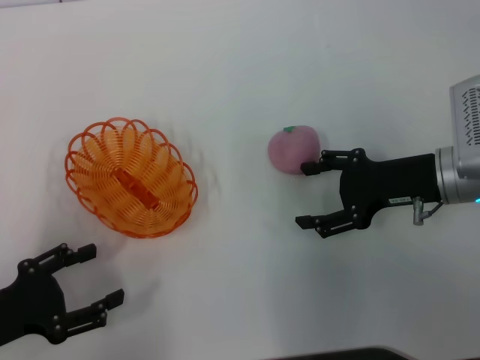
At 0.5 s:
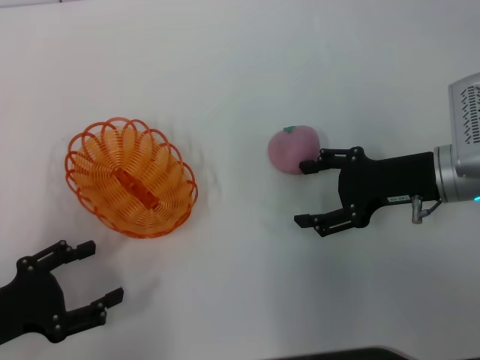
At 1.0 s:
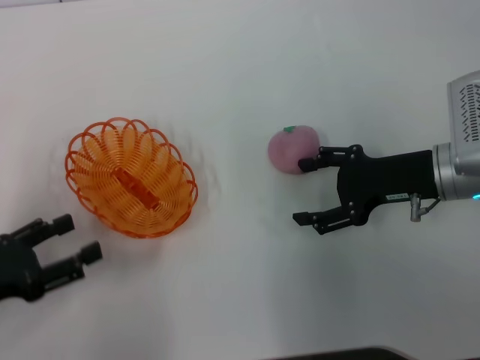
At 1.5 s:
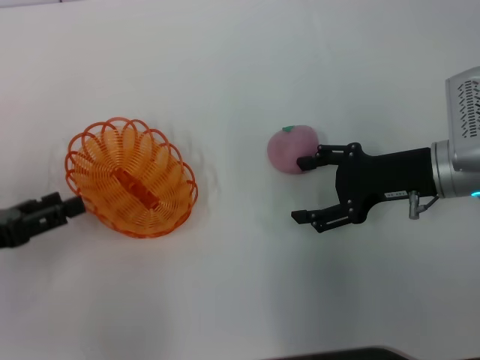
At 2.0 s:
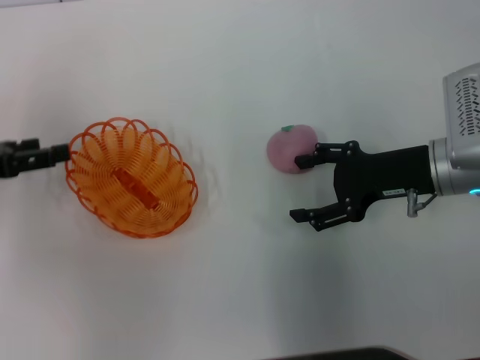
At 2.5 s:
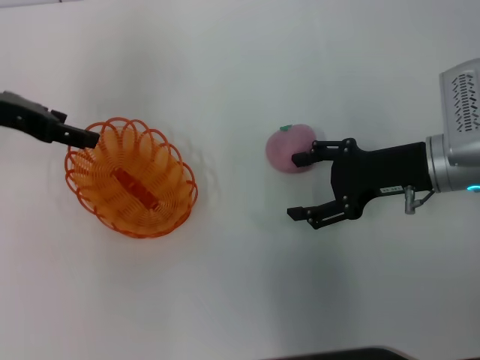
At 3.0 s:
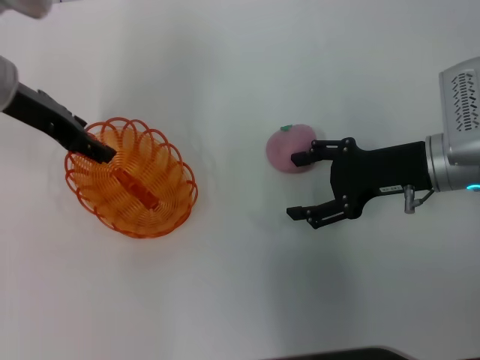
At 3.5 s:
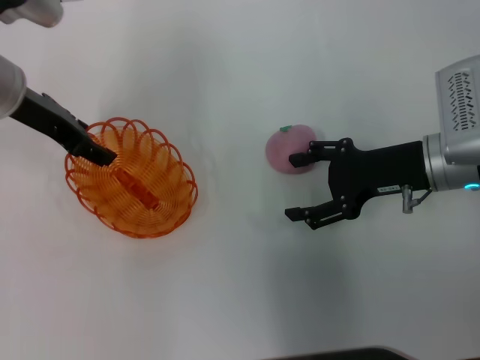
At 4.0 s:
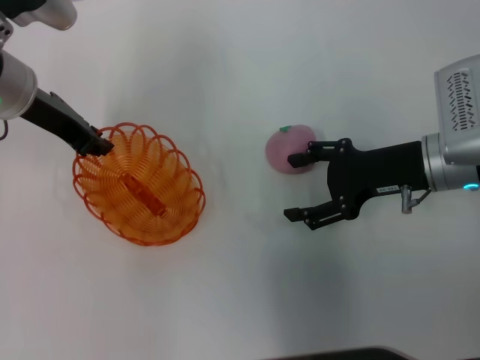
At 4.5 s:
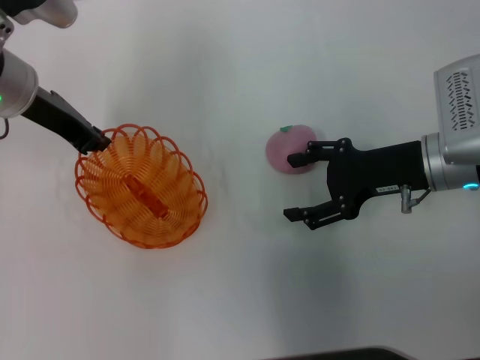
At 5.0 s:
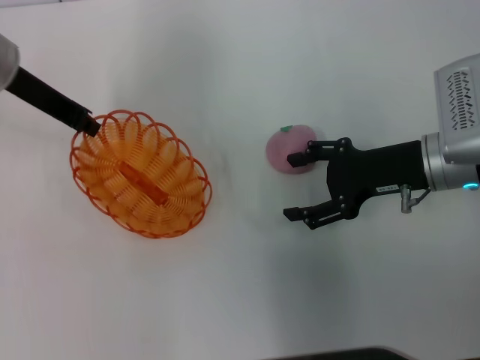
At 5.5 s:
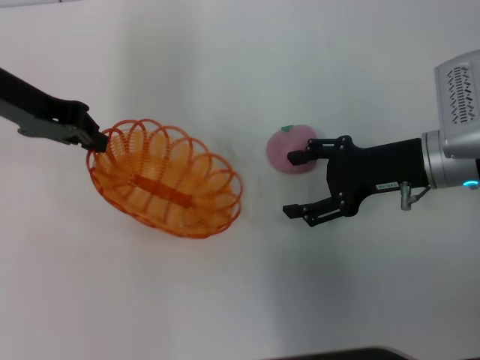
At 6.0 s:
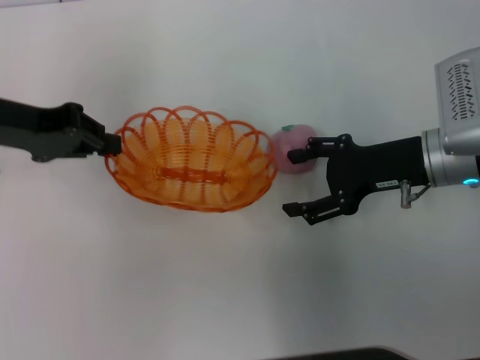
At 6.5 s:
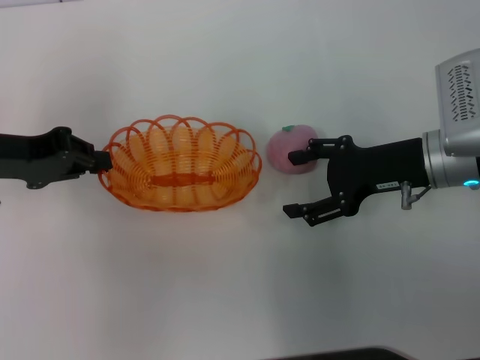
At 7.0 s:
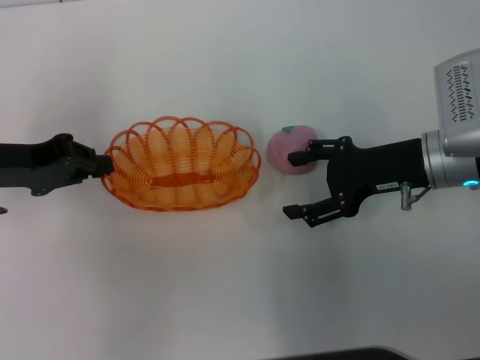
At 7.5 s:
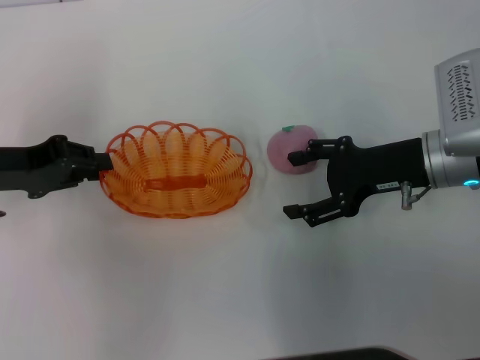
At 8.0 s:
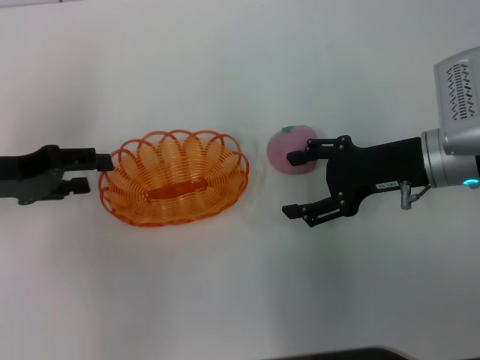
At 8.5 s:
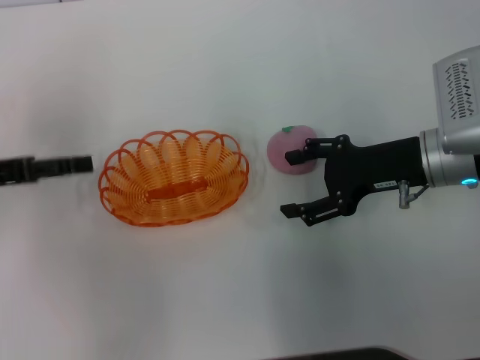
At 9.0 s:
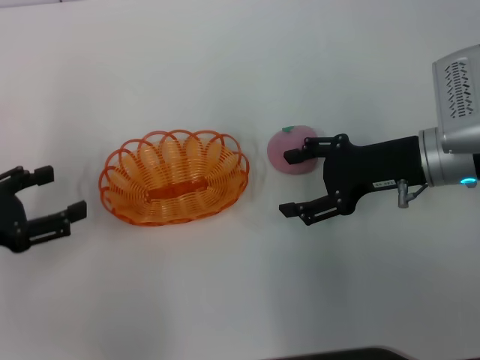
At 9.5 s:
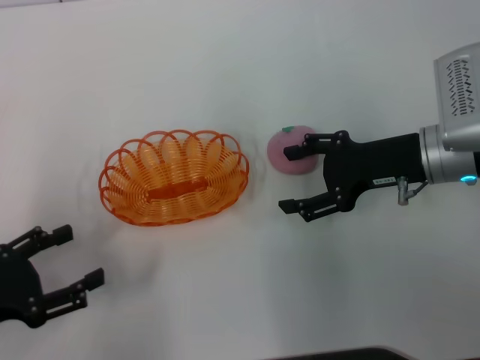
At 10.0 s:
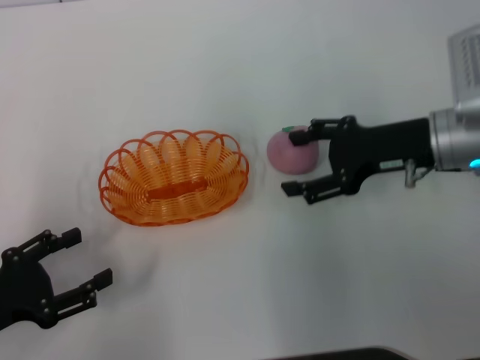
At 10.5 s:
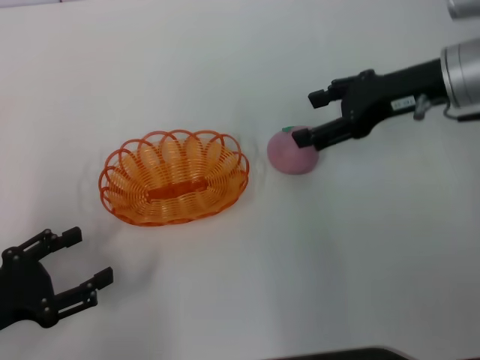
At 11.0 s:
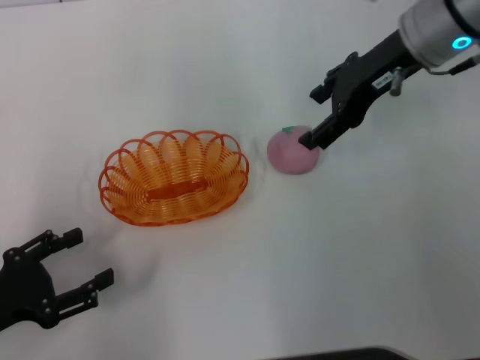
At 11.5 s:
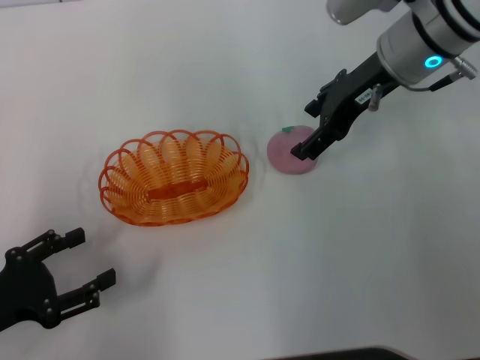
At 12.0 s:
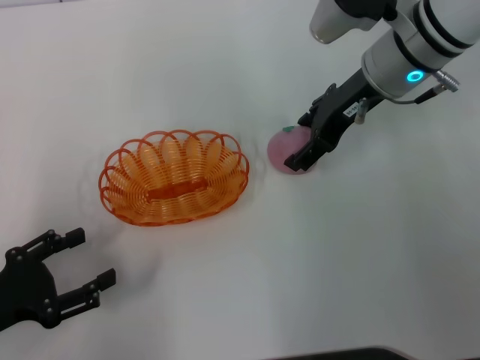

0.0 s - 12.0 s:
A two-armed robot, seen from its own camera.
Step, 0.0 s - 5.0 s: Pick up the basket with the left gripper.
Step, 5.5 s - 9.0 s: Place the basket in the center of view with the left gripper.
0.0 s - 2.0 s: The left gripper travels forward and upward by roughly 15 cm.
2.0 s - 4.0 s: The left gripper is displaced to the right and forward by about 15 cm.
4.0 s - 6.0 s: The left gripper goes about 5 cm to the left, and closes.
6.0 s - 8.0 s: The left gripper travels downward by roughly 5 cm, and opens up.
8.0 s - 10.0 s: The left gripper is displaced backward and downward by approximately 15 cm, and opens its fingers.
10.0 s - 12.0 s: The right gripper moves forward, to the left and upward, some 10 cm.

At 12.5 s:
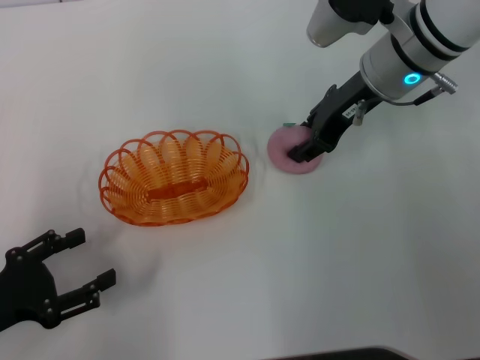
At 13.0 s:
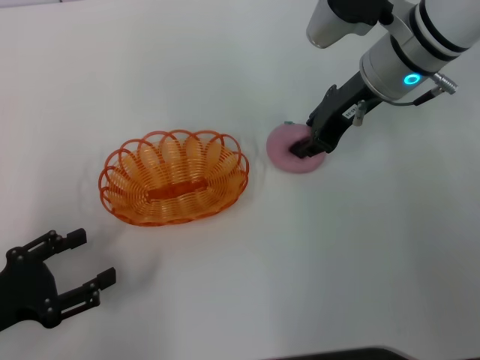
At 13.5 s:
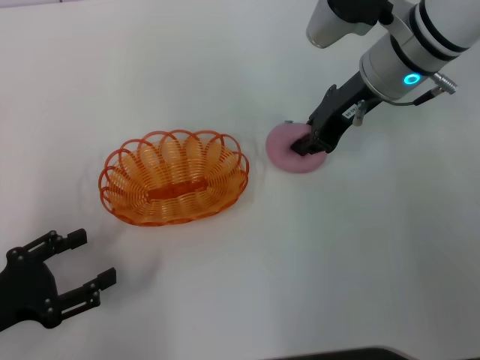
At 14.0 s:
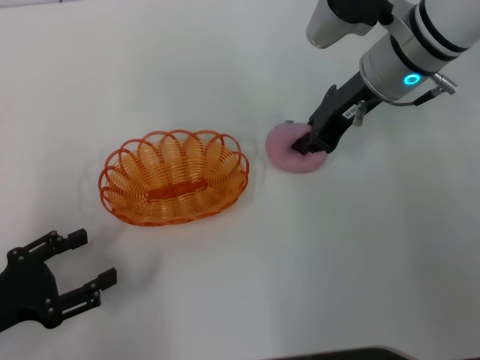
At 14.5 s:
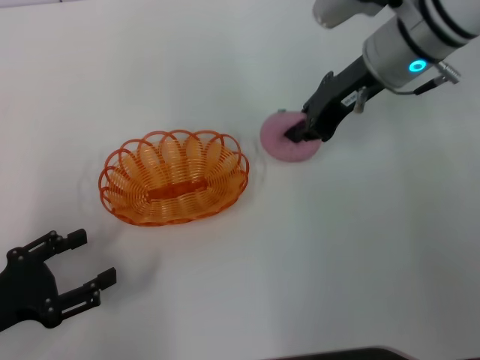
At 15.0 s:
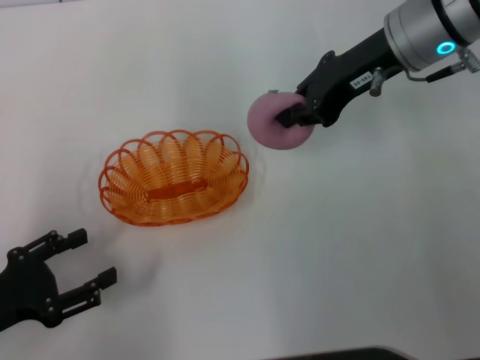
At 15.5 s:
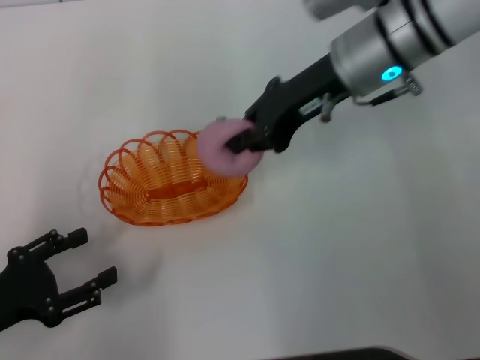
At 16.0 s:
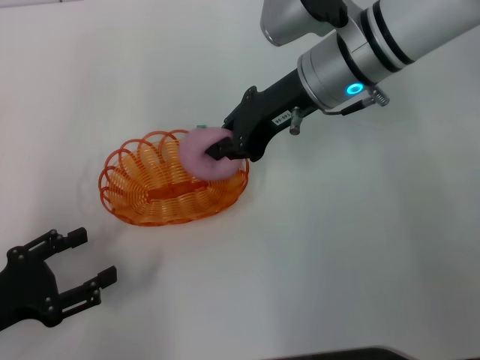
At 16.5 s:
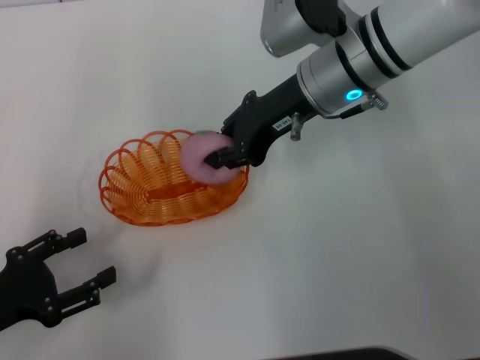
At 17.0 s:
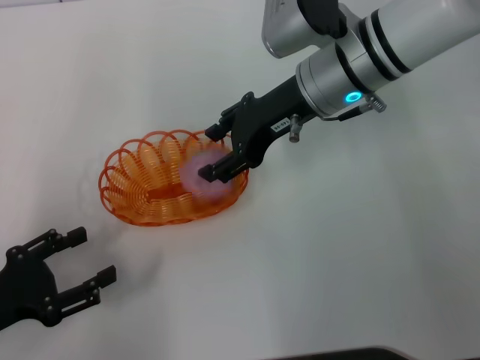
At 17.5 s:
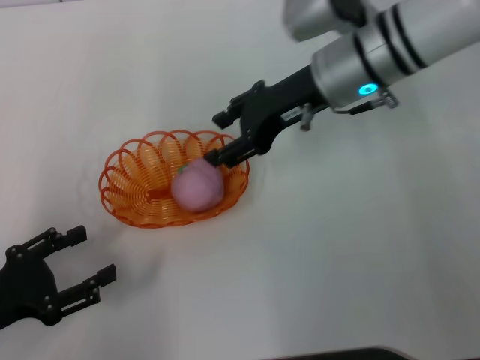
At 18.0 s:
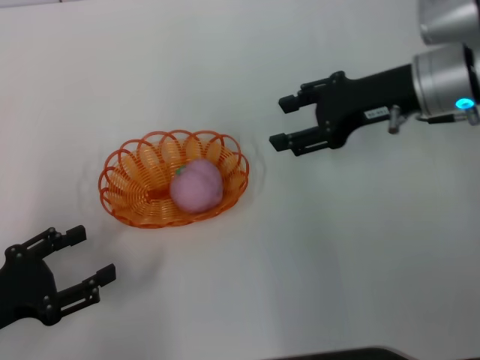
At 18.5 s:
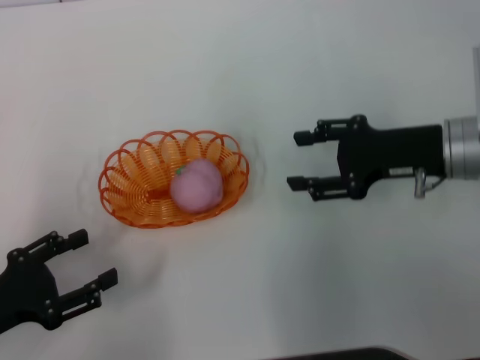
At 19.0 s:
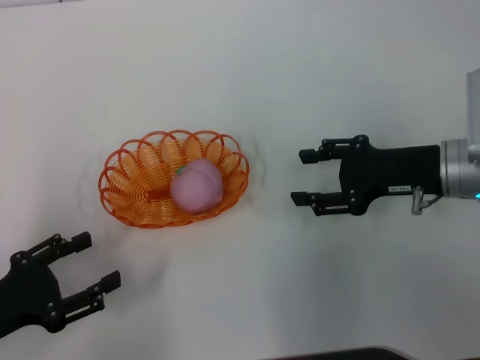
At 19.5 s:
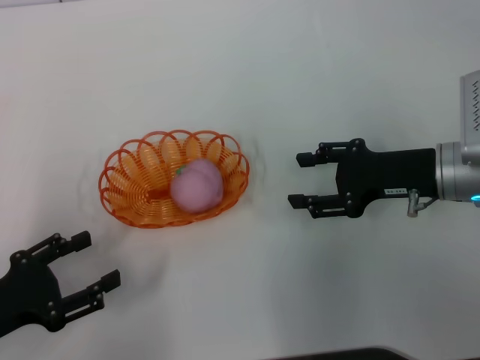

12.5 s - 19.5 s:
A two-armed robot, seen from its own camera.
Step, 12.5 s - 14.5 s: Pick up the peach with the right gripper.
Step, 15.5 s - 18.0 s: Place the peach into the basket with the right gripper.
12.5 s - 14.5 s: The right gripper closes its fingers.
14.5 s - 16.0 s: The right gripper shifts about 5 cm to the left.
16.0 s - 17.5 s: The right gripper opens up.
17.5 s - 19.5 s: The right gripper heads to the right, backward and downward, covering some 15 cm.
